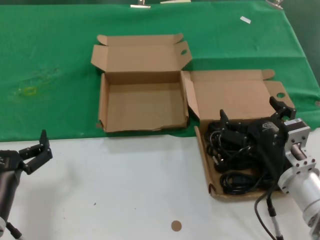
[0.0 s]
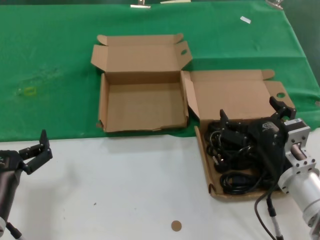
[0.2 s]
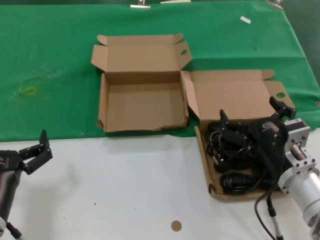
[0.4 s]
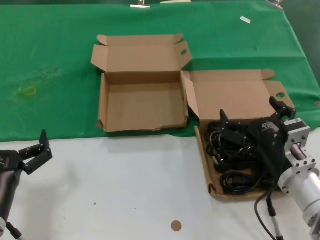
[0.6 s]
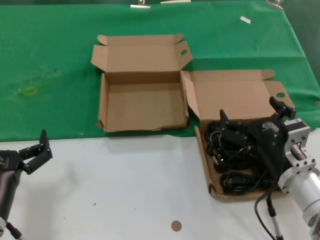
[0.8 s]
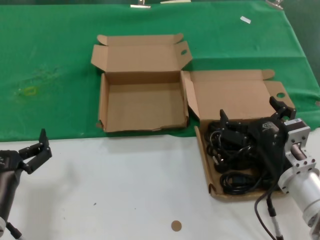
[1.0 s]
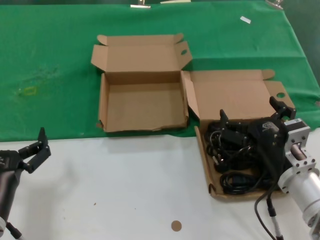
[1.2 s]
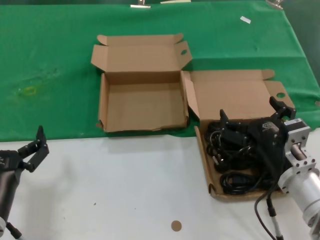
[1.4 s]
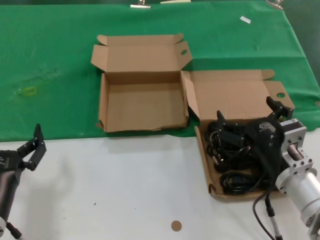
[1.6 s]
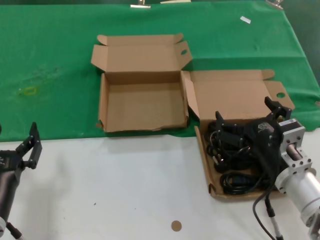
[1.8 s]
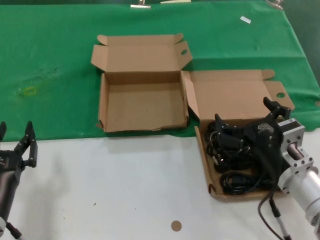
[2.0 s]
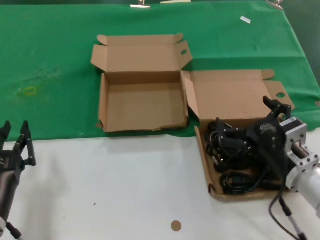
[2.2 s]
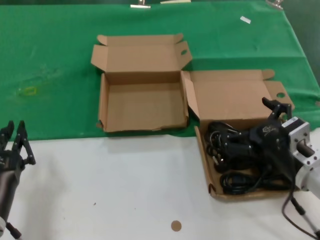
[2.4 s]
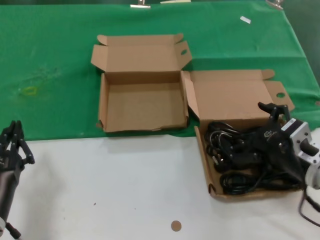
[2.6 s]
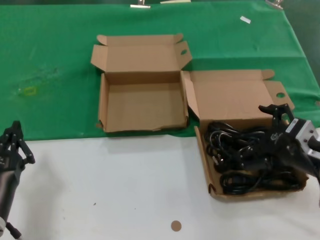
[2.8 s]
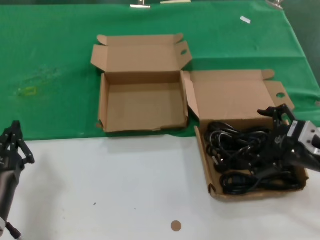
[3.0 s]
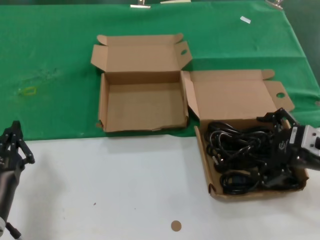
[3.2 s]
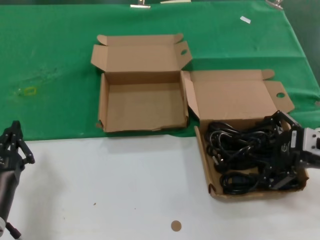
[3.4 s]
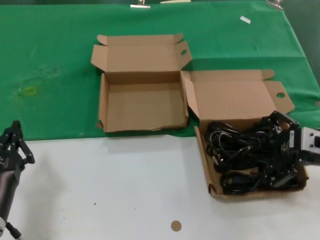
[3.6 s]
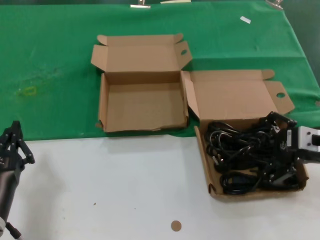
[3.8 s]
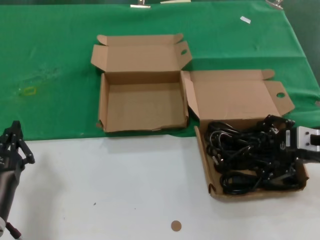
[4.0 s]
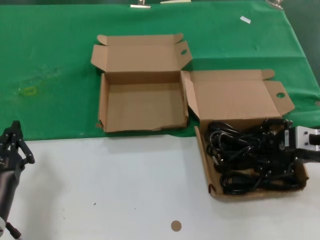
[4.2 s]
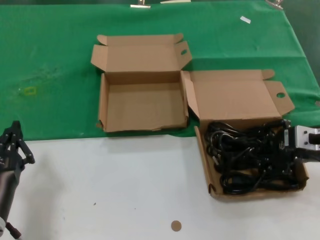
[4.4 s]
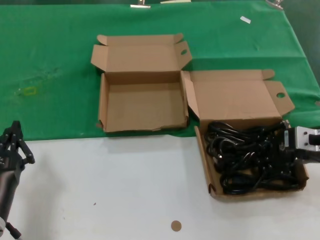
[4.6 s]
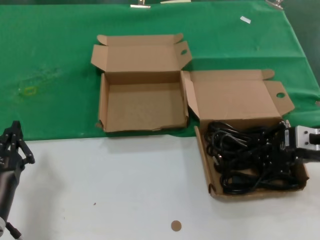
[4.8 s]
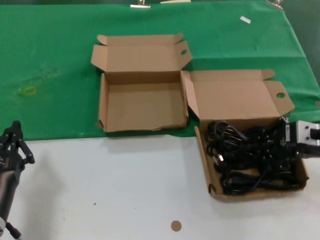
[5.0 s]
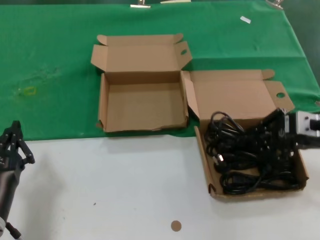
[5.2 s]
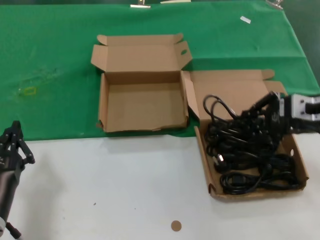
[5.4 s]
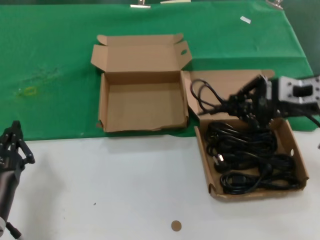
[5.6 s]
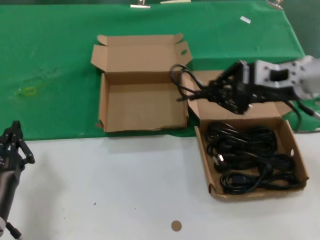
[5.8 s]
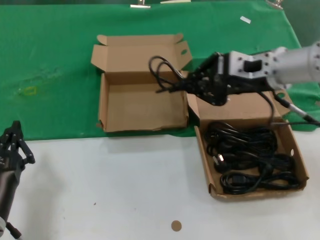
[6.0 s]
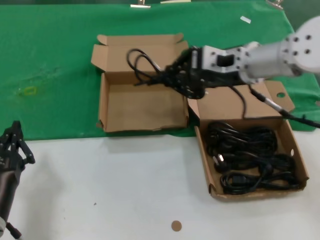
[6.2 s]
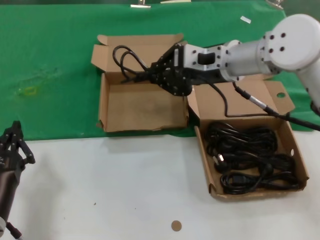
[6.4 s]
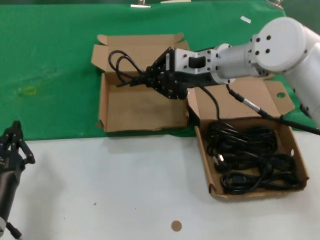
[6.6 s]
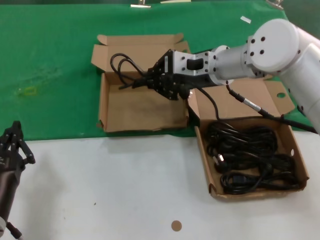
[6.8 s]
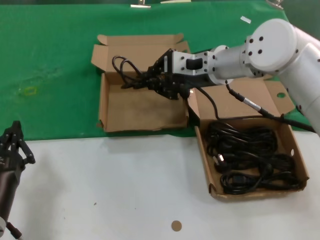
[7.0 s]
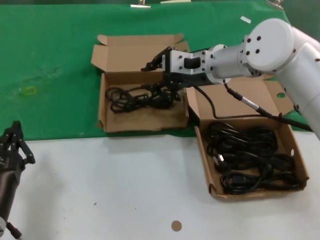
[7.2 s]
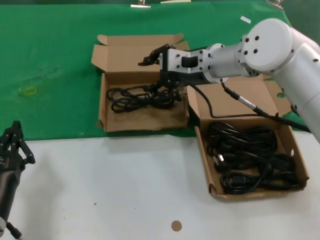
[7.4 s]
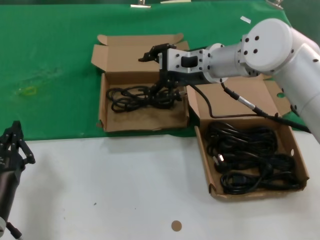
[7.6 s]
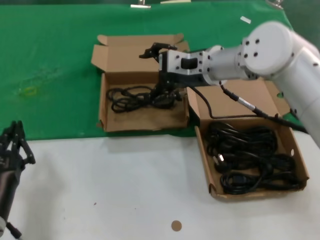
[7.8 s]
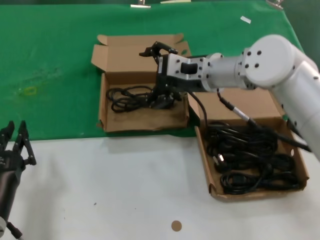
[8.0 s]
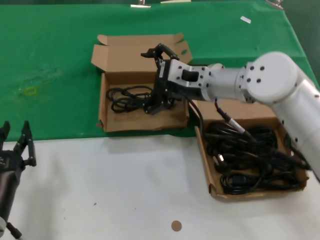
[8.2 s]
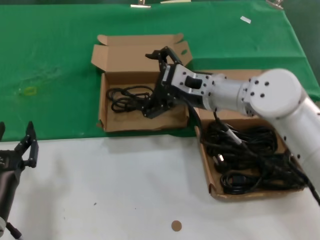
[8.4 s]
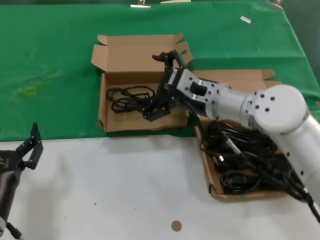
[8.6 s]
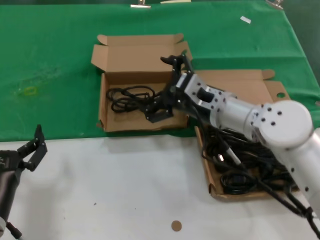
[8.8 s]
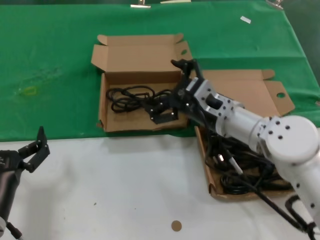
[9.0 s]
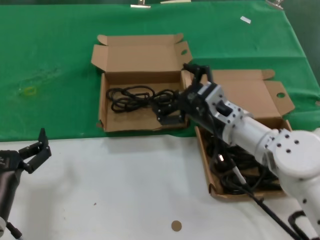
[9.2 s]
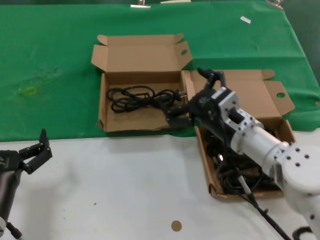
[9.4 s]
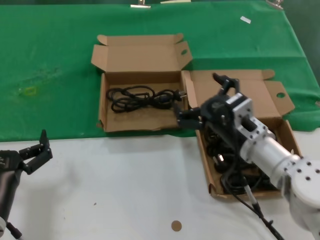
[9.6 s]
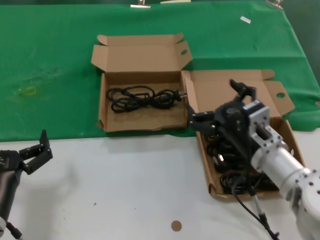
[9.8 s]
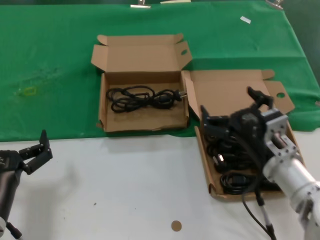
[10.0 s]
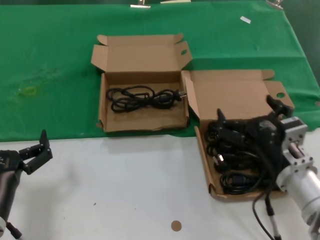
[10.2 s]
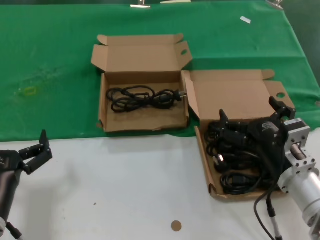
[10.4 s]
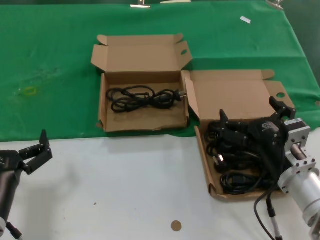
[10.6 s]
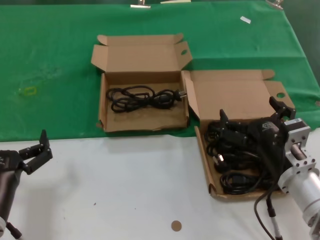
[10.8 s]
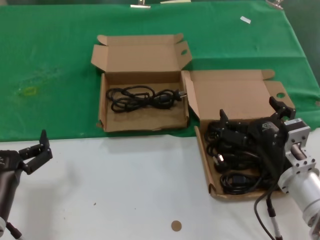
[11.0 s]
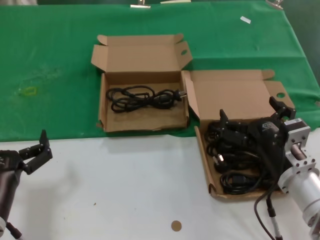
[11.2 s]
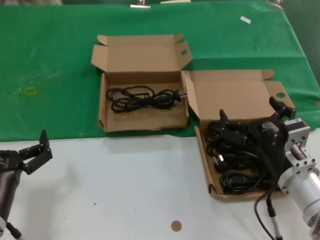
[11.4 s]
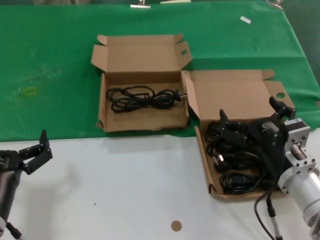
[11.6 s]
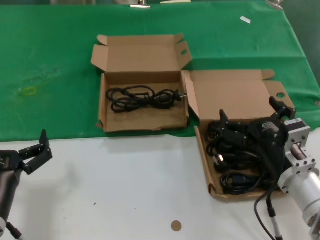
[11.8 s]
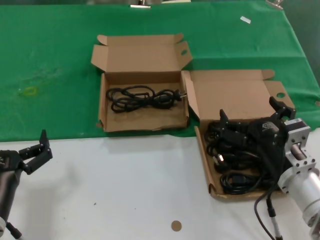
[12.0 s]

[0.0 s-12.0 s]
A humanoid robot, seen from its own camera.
Task of the whole recording: take the parts from the box containing them and put them into an empty box.
Step, 0.0 to 4.6 s: Grasp the data cable.
Step, 4.8 to 7.2 s: Place the data cable in the another box.
0.0 to 1.6 s: Both hands stay about where they are.
1.6 to 3.0 s: The right hand is displaced to the right and upward by some 10 cm.
3.0 to 4.4 s: The right hand changes place by some 5 cm.
4.4 to 6.0 s: The right hand moves to the left, upward and forward, about 15 cm.
6.0 to 7.6 s: The right hand is displaced to the left and forward by some 10 cm.
7.6 to 9.0 s: The right hand travels downward and backward by approximately 15 cm.
9.0 to 10.4 s: The right hand goes roughly 15 cm backward, to the right and downward.
10.4 to 12.0 s: Both hands stay about where they are.

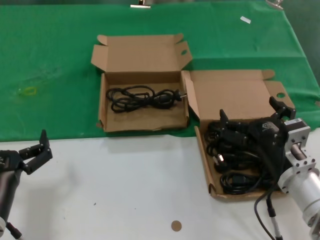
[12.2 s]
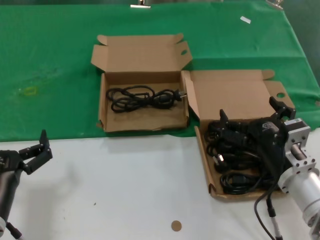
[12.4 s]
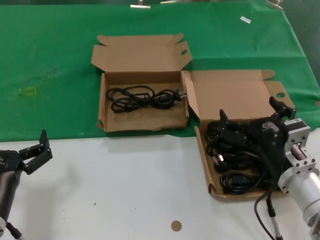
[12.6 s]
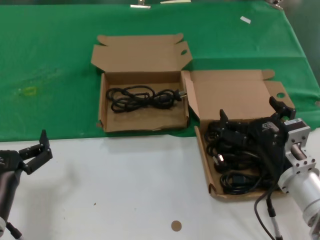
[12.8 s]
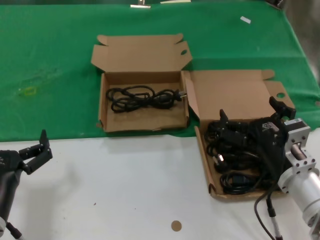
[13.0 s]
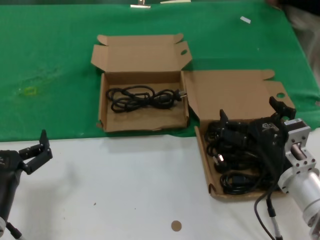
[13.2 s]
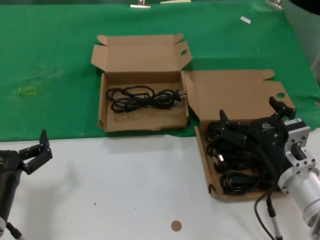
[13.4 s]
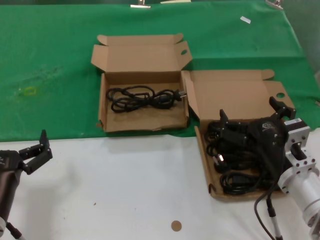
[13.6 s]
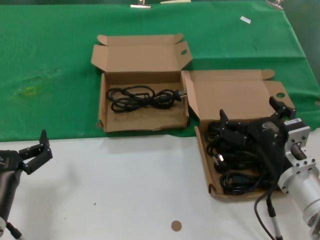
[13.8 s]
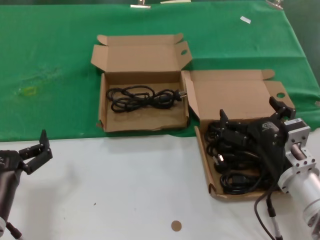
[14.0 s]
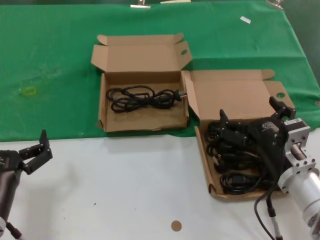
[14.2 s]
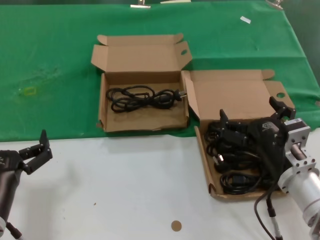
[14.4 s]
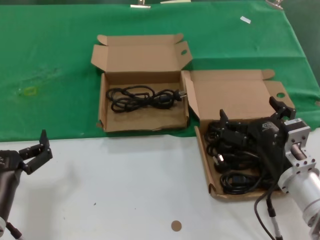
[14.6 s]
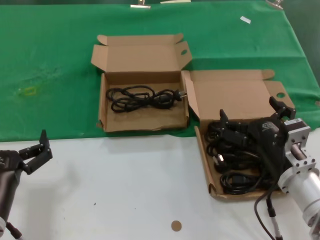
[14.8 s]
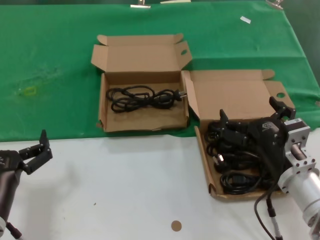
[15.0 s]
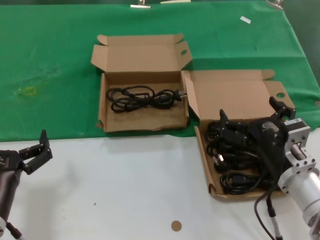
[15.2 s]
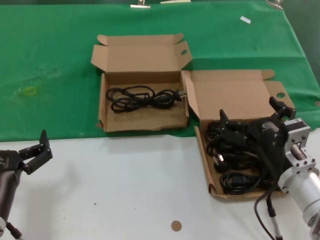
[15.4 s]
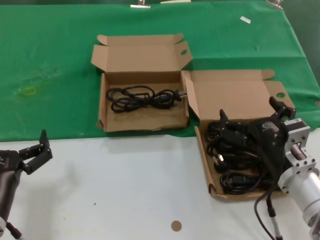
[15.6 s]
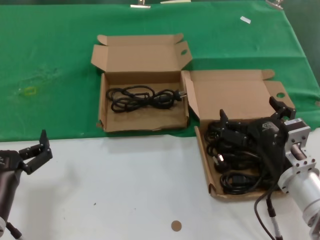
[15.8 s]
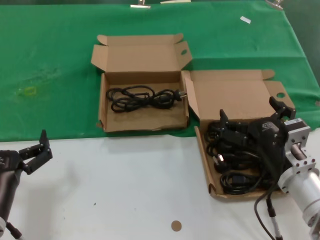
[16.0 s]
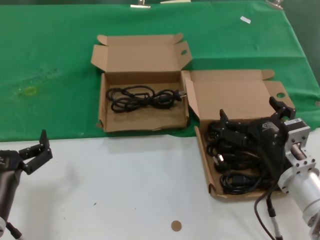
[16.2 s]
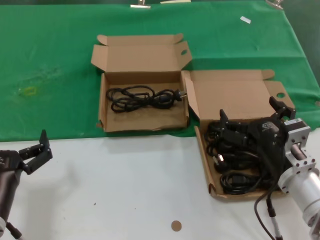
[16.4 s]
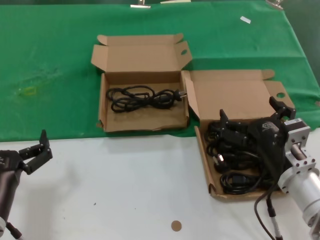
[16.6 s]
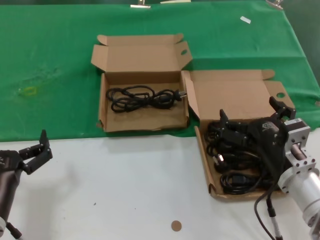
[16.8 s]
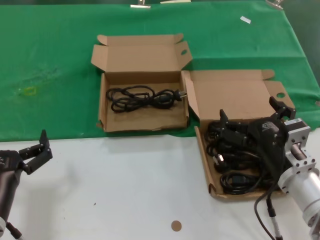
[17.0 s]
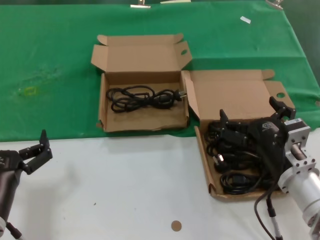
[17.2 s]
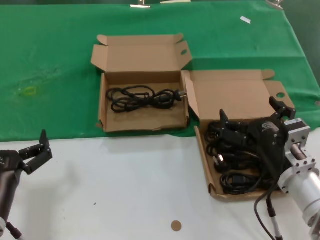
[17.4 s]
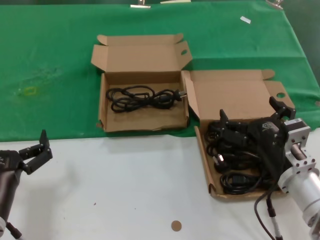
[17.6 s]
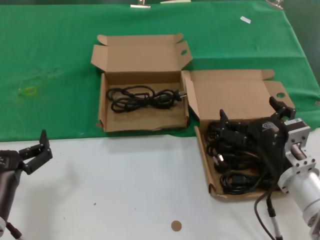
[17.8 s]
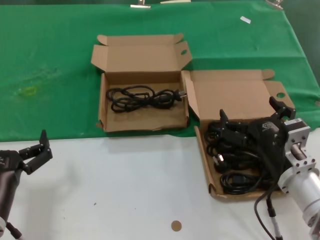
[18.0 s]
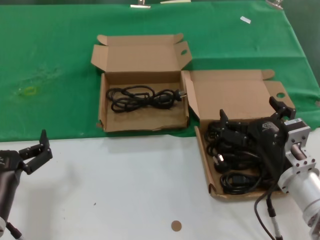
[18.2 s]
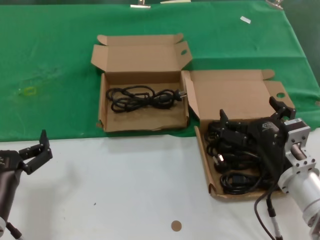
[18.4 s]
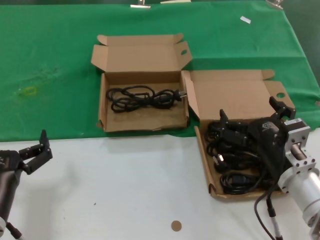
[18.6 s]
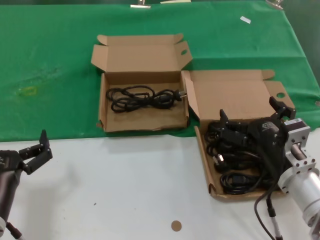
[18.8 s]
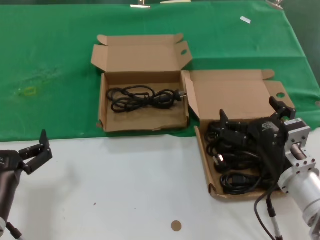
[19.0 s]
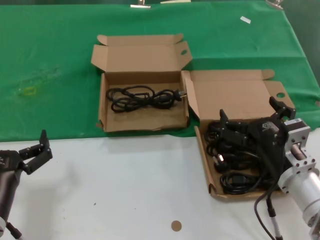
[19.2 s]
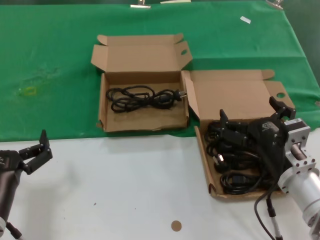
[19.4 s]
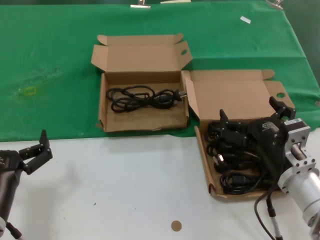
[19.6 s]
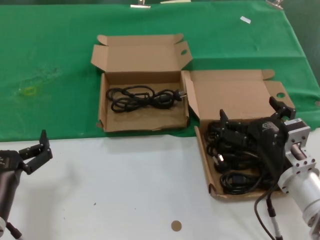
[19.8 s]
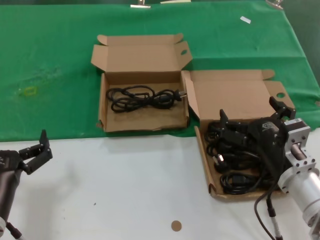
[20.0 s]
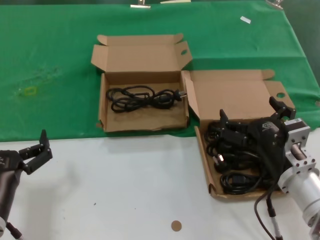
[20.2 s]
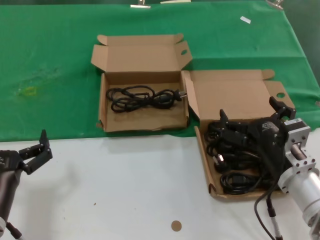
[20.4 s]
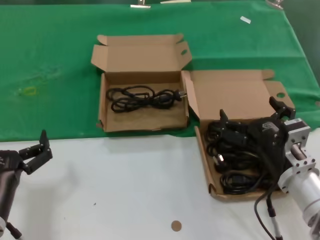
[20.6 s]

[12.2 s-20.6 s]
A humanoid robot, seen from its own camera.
Task of the whole recording: take the parts from the box containing them and put them into an empty box.
12.2 to 20.6 s: The two hands keep their place.

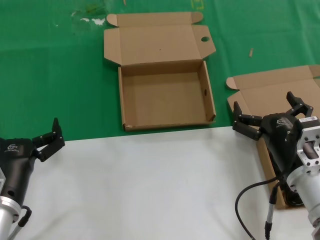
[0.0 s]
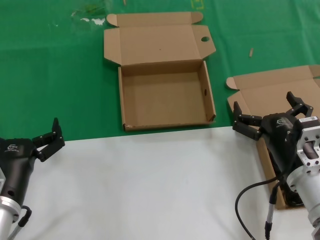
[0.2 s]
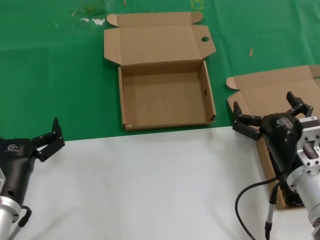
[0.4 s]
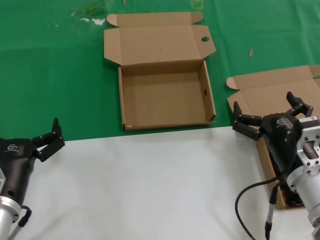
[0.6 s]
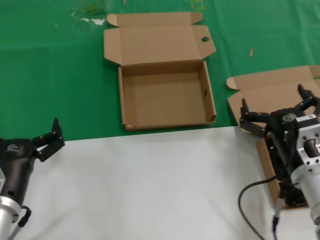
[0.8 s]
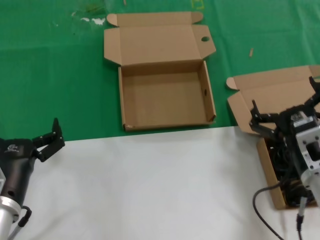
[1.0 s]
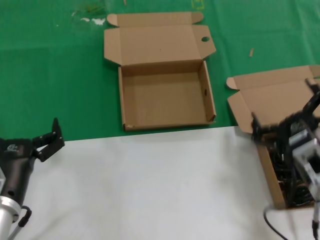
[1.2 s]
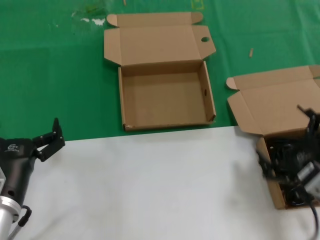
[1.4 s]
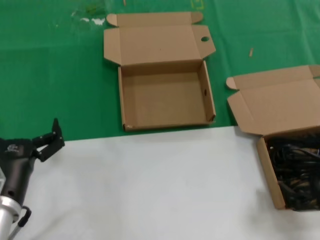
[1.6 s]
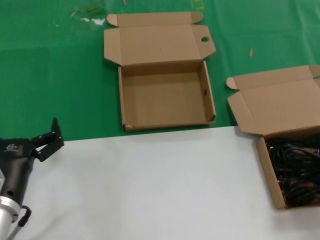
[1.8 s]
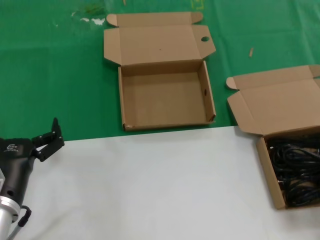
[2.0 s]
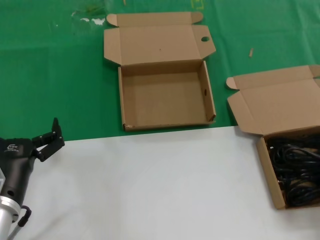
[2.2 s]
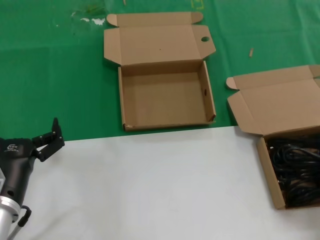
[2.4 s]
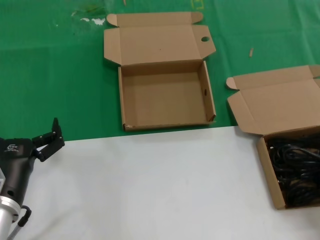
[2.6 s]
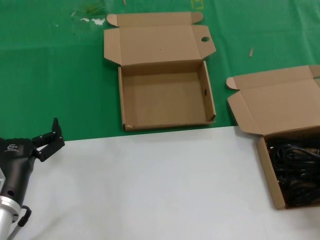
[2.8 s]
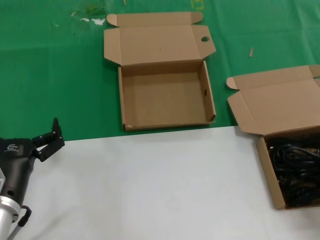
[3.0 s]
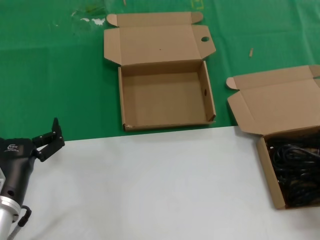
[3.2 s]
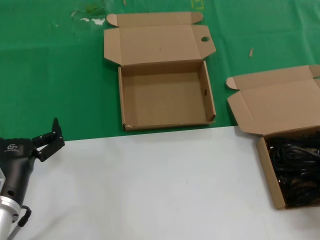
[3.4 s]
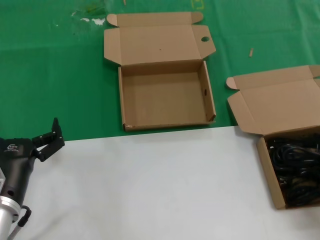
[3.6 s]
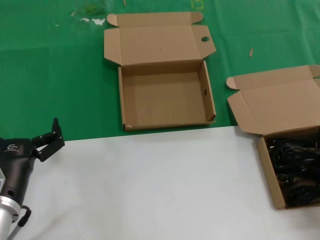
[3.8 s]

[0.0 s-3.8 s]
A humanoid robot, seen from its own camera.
Task of the whole recording: take the parts from the box containing them and put them into an empty box.
1.2 to 2.6 s: The right hand shifts about 15 cm to the right.
